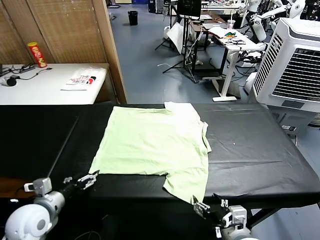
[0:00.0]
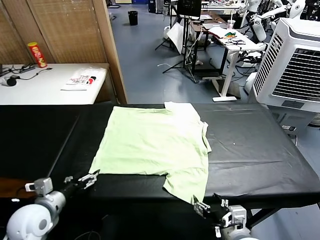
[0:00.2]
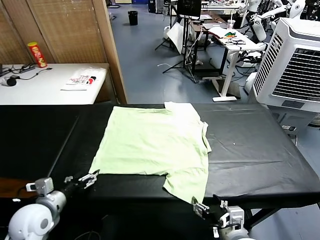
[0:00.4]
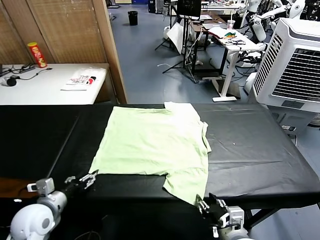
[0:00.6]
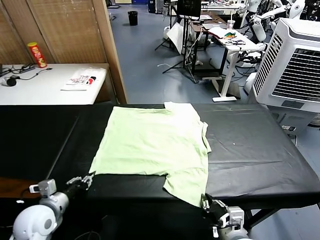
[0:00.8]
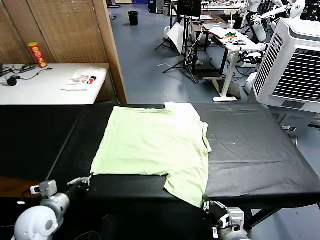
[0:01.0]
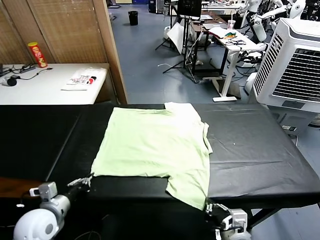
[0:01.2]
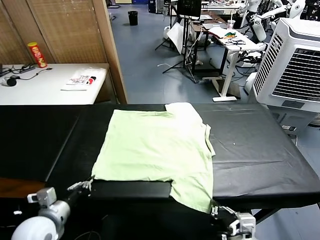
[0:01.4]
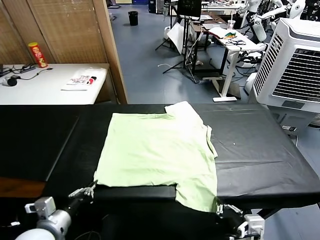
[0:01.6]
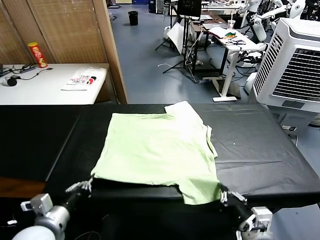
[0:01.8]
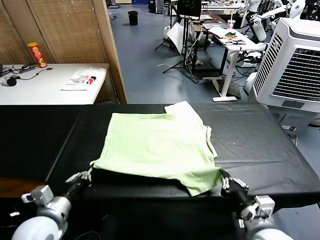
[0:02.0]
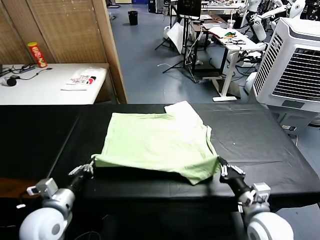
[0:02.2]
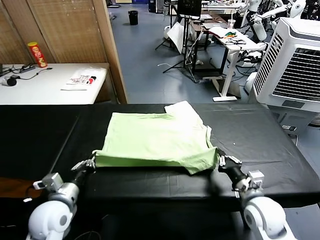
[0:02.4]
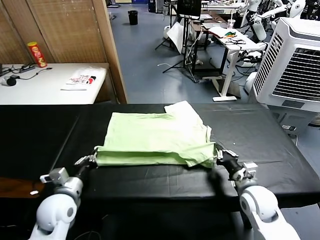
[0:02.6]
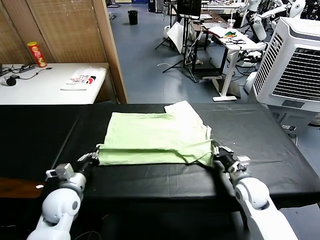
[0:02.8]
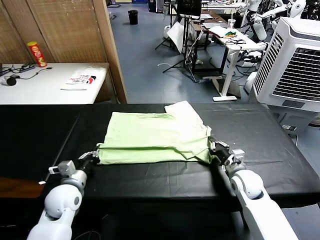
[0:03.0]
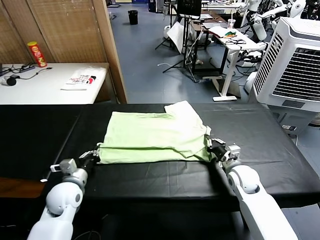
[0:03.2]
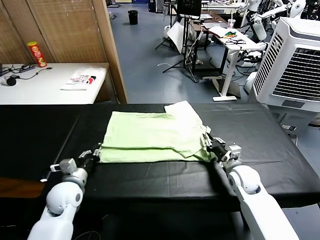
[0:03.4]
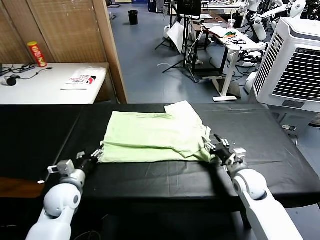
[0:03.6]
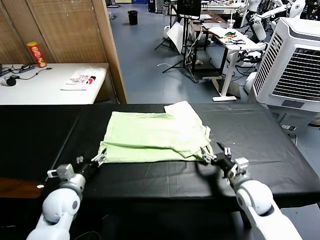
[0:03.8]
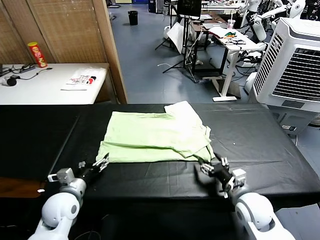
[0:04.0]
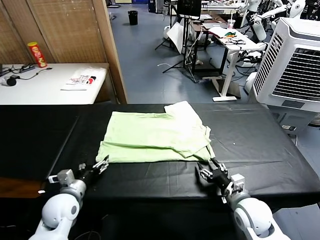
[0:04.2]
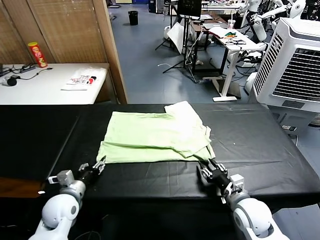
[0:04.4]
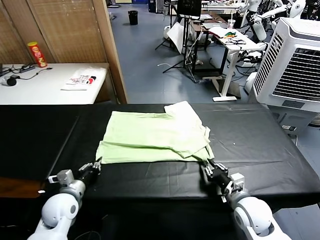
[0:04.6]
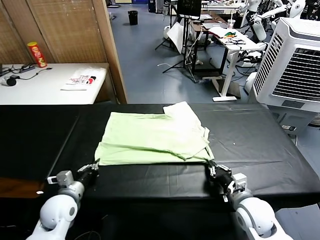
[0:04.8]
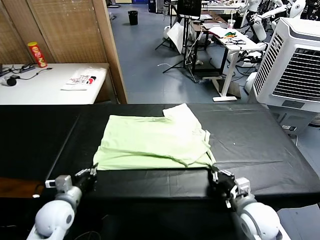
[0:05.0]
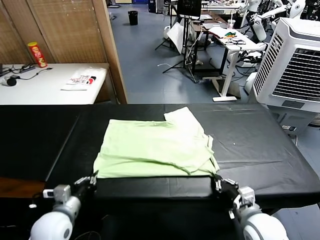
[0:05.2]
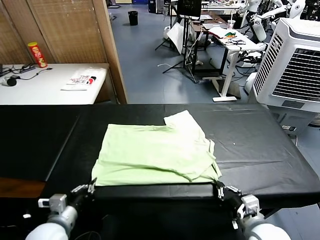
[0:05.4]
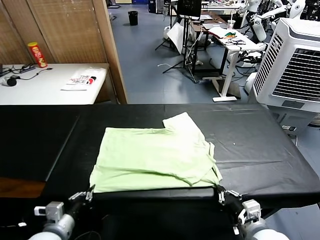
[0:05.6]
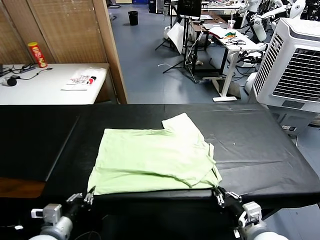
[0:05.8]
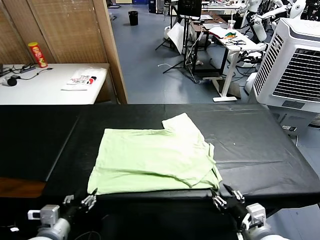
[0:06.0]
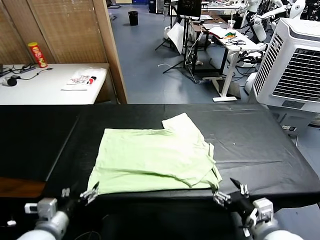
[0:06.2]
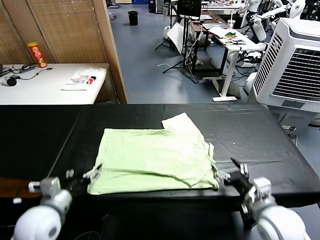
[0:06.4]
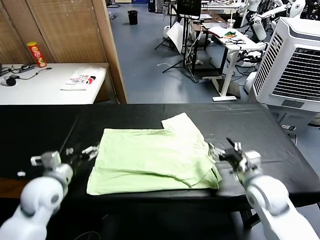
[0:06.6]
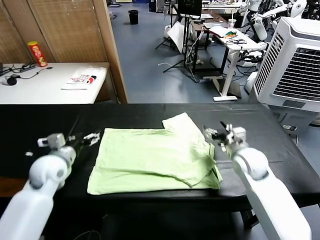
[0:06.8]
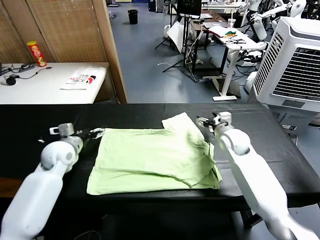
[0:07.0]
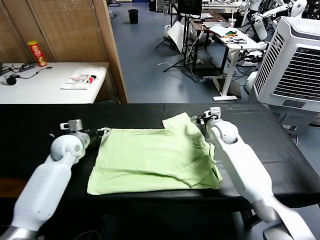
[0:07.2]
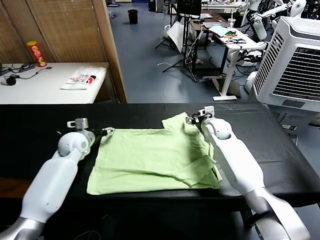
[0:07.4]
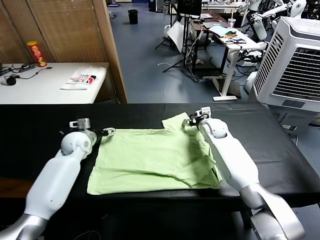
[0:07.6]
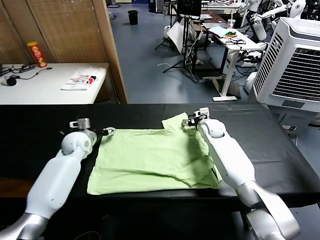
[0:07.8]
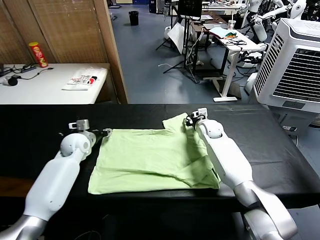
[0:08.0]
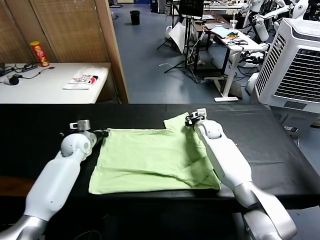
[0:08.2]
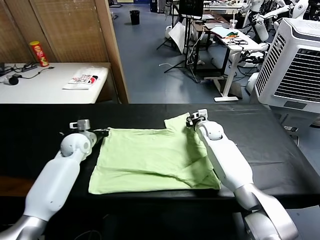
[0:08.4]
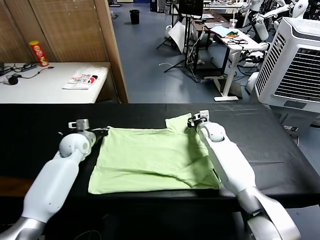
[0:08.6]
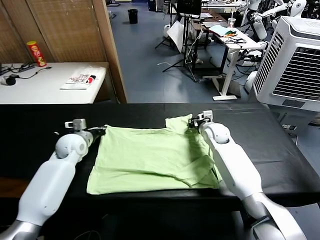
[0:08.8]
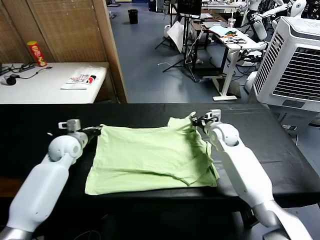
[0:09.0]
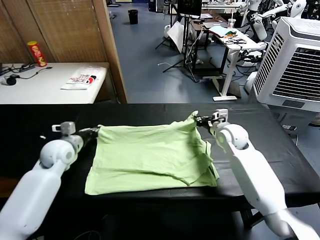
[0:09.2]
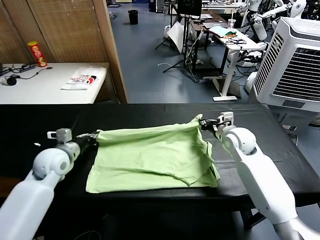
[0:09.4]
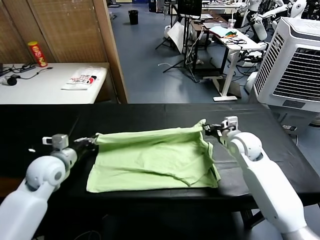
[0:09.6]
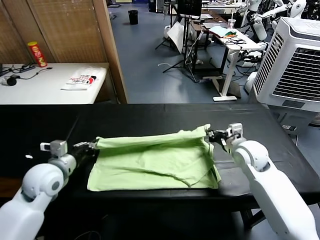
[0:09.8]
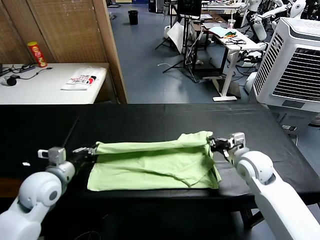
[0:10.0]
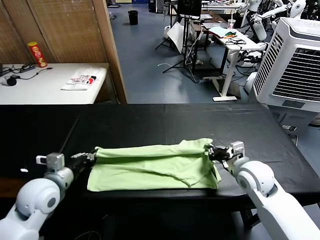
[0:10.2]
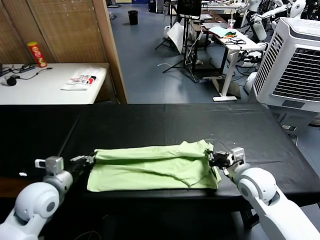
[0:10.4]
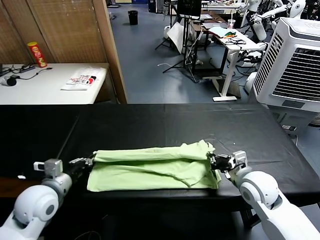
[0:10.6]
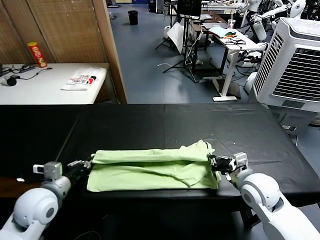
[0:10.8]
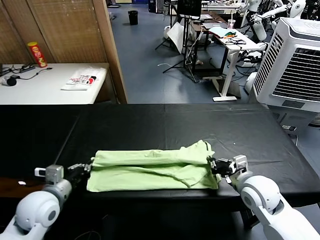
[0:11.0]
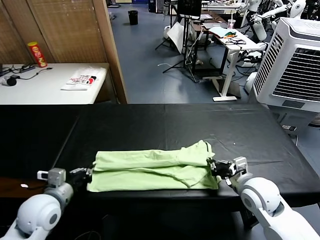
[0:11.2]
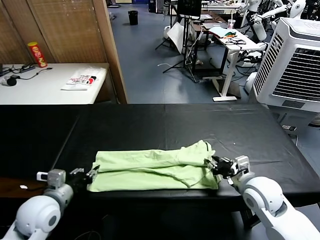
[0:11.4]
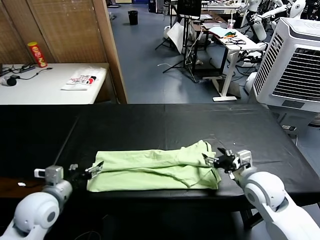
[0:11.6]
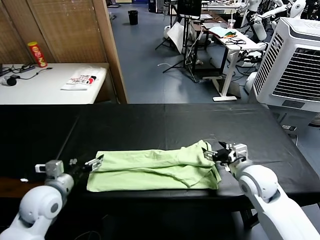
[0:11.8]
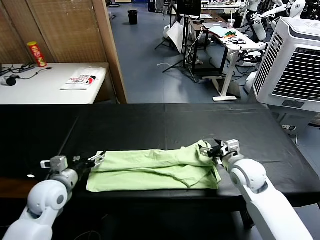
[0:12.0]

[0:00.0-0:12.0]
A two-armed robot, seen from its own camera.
Task of the whole recording: fold and organize the clothes.
Step, 0:00.0 to 0:01.0: use both grippers simultaneously to clamp the lower edge of the clothing fabric.
Step, 0:01.2 to 0:03.6: use both grippers to drag the lower edge of the fabric forward and fold it over the upper edge.
Step, 0:03.8 to 0:06.0: Drag the clothes downward with both gripper.
Step, 0:06.2 to 0:08.2: use both grippers simultaneously to clamp the upper edge of the clothing fabric.
Step, 0:08.4 to 0:11.6: use both grippers to drag the upper edge of the fabric backward and fold it over the lower edge.
0:01.6 to 0:03.0: The right gripper shifts about 25 cm forward and downward, while the left gripper moves forward and downward, roughly 15 cm.
0:03.0 to 0:04.4: The right gripper moves backward, approximately 10 cm, and opens, then closes again. Meanwhile the left gripper opens.
0:04.4 to 0:06.0: The two grippers go some 15 cm backward and upward. The right gripper opens. Meanwhile the left gripper opens its fingers.
0:06.0 to 0:07.6: The two grippers go approximately 40 cm forward.
0:07.6 to 0:09.0: The right gripper shifts about 10 cm backward and upward, and closes. Meanwhile the left gripper shifts by roughly 5 cm, and closes up.
0:09.0 to 0:10.4: The grippers both shift backward by about 20 cm.
0:10.4 to 0:12.0: The left gripper opens up. Meanwhile the right gripper goes about 5 cm forward, and opens up.

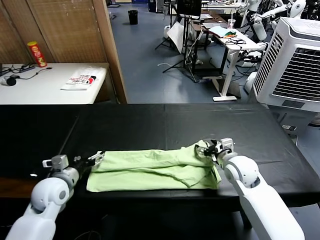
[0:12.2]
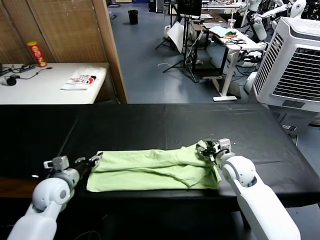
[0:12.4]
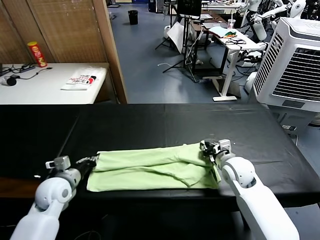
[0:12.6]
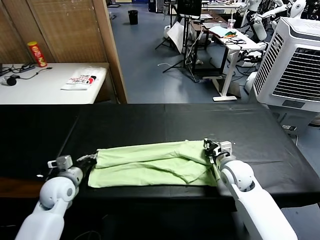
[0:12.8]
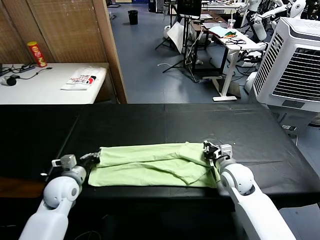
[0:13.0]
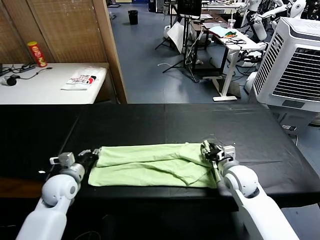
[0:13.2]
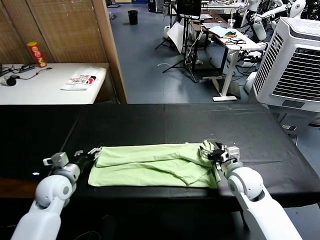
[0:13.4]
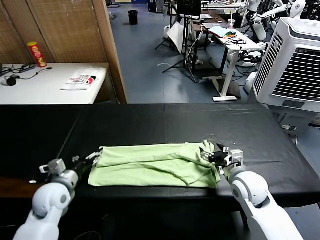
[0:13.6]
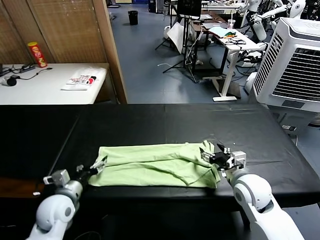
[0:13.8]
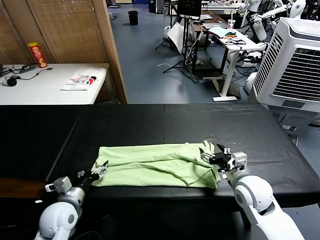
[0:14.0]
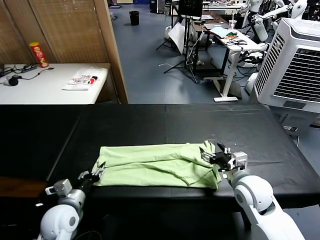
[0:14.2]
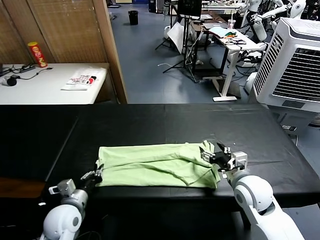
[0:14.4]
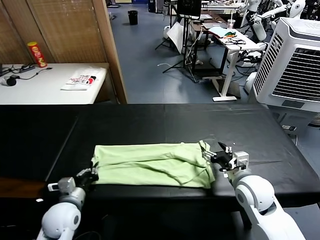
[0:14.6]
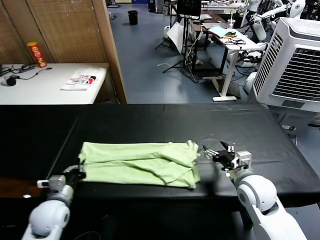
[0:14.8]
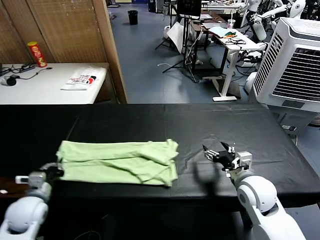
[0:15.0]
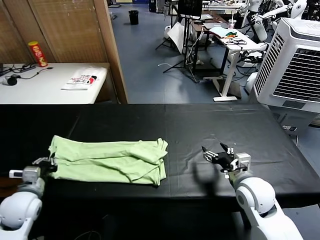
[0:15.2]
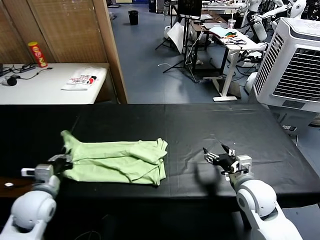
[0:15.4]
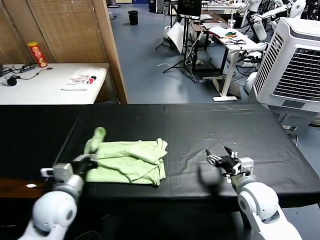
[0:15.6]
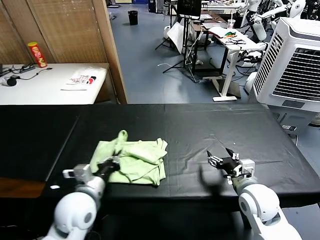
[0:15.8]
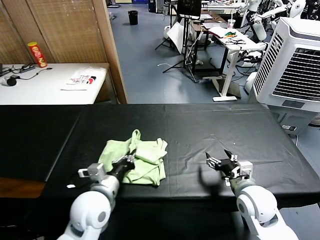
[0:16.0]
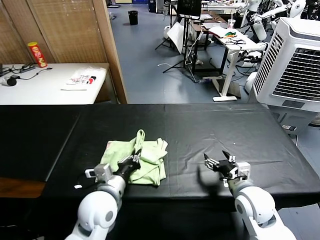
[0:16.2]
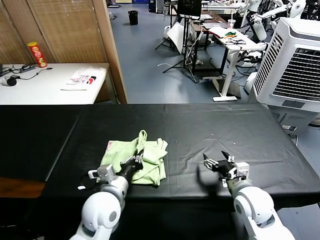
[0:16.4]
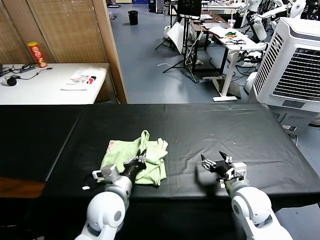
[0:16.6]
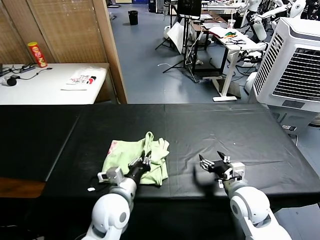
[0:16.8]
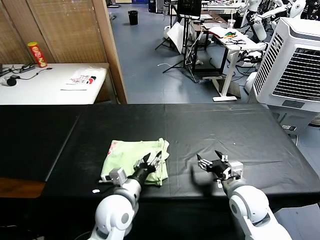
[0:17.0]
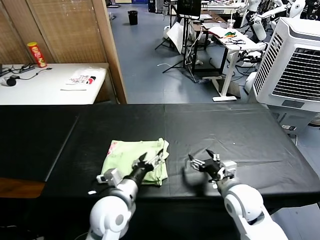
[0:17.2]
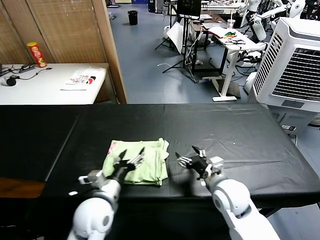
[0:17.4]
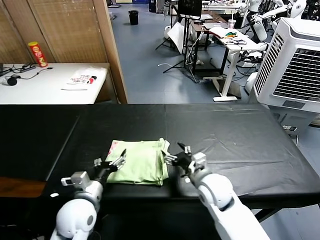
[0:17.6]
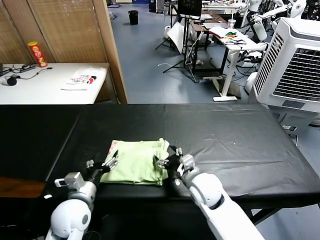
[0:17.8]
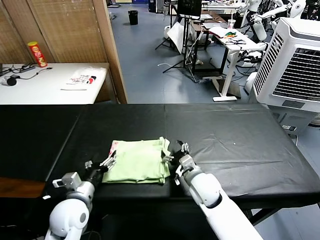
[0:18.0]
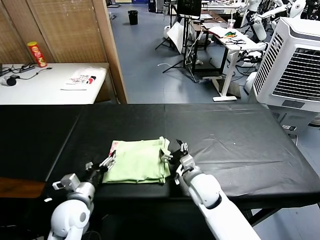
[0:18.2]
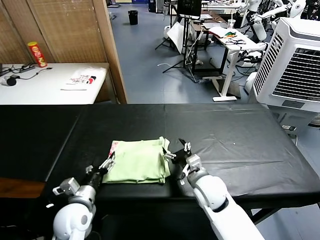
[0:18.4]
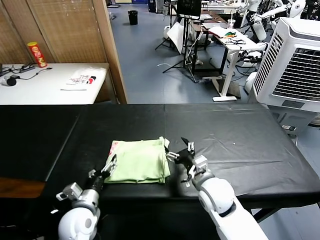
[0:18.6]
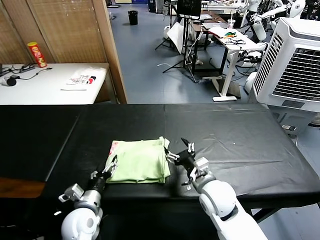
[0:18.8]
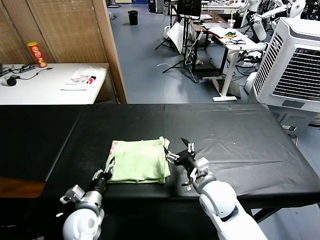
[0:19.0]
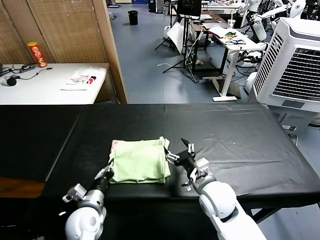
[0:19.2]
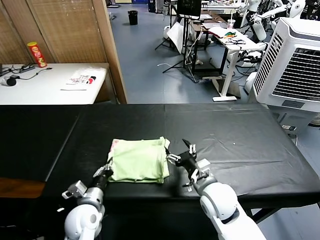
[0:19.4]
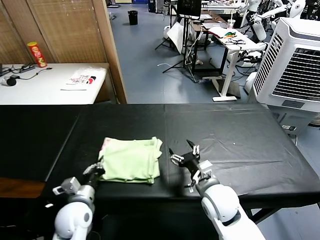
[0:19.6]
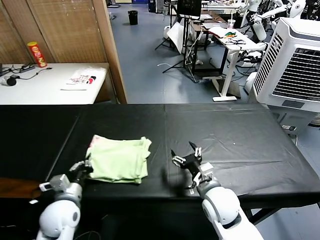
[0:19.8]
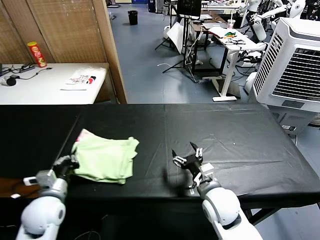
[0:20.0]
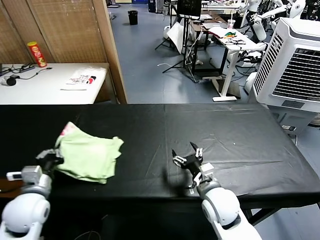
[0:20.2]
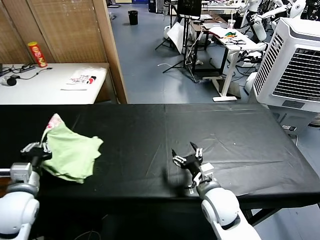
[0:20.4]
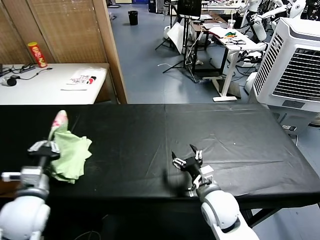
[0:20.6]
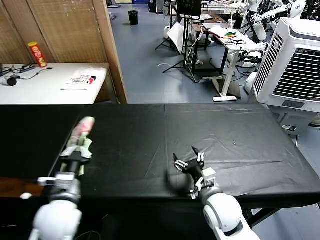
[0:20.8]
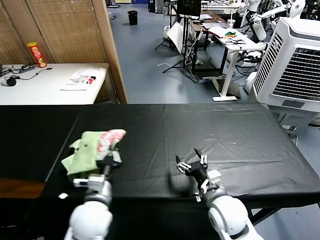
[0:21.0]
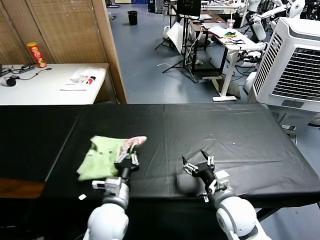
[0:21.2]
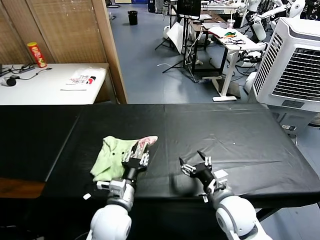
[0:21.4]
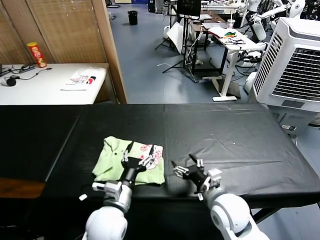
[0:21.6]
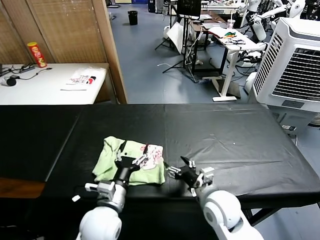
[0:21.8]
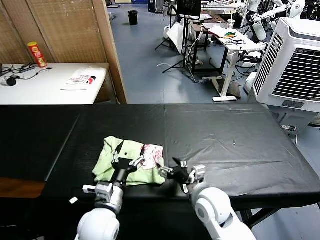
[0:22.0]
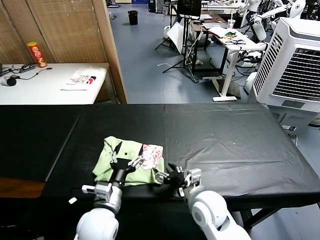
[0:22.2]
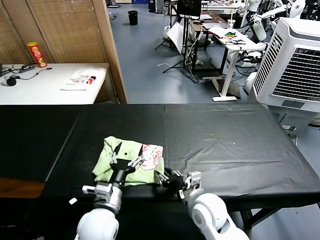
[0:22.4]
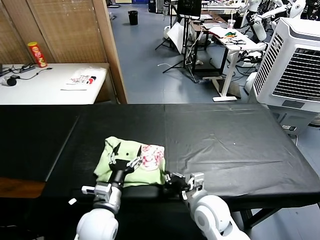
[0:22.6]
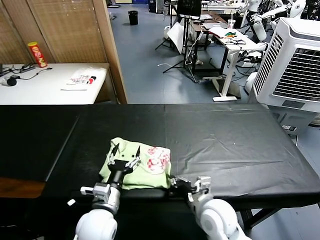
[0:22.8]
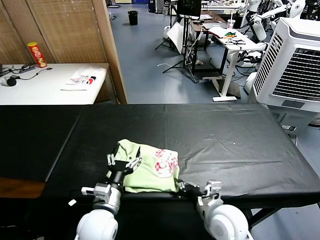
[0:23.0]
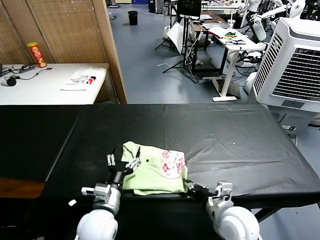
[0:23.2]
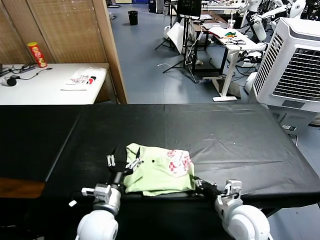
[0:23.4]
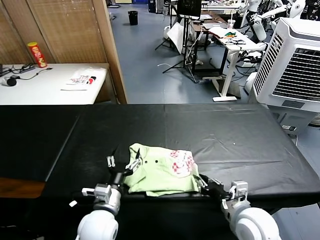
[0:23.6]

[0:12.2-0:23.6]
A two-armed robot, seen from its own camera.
Task of the whole recording: fold and organize the clothes.
Step, 0:12.2 to 0:14.4: use the left gripper to clamp the left edge of the fabric.
Step, 0:14.6 to 0:17.0: use the left gripper to drag the left edge of the fabric to the left and folds it over the right edge.
Step, 0:17.2 to 0:21.4: Flip the folded clothes over with left gripper.
0:12.2 to 0:13.6: The right gripper is displaced backward by about 5 cm, and closes, then opens again. Meanwhile the left gripper closes and opens again.
0:13.6 to 0:15.0: The left gripper shifts some 5 cm to the left, and closes up.
0:15.0 to 0:16.4: The left gripper goes approximately 25 cm to the right.
0:16.4 to 0:17.8: The right gripper shifts about 15 cm to the left and forward, while the left gripper heads to the left, covering about 10 cm, and opens its fingers.
0:17.8 to 0:19.4: The right gripper shifts by some 5 cm. Meanwhile the left gripper heads downward, covering approximately 5 cm, and closes up.
0:19.4 to 0:20.8: The left gripper is displaced upward by about 10 cm.
0:20.8 to 0:22.2: The left gripper heads to the right, covering approximately 10 cm, and opens.
0:22.2 to 0:23.6: The right gripper goes some 10 cm to the right and backward, and closes.
